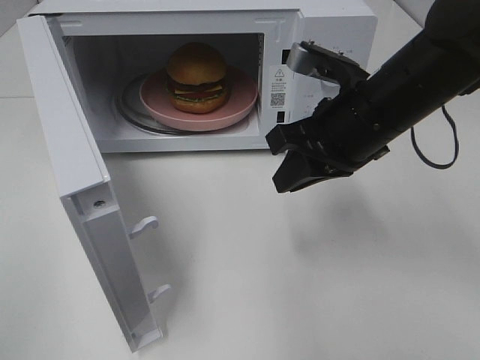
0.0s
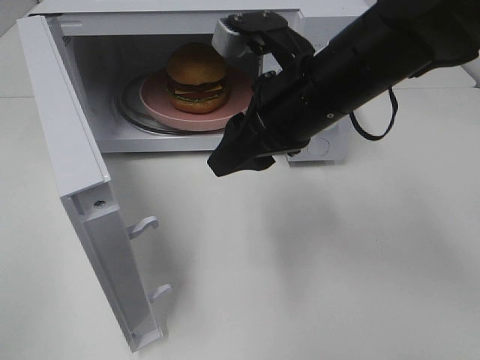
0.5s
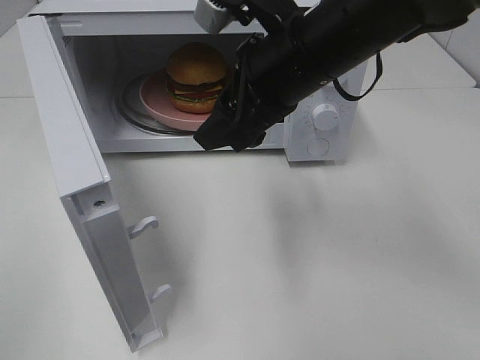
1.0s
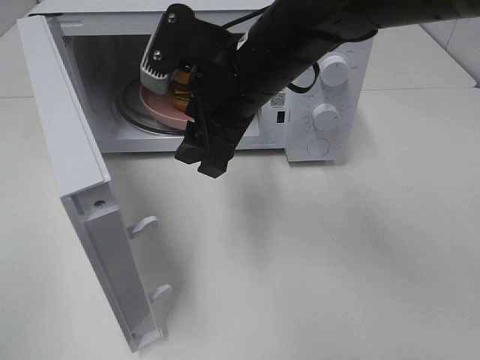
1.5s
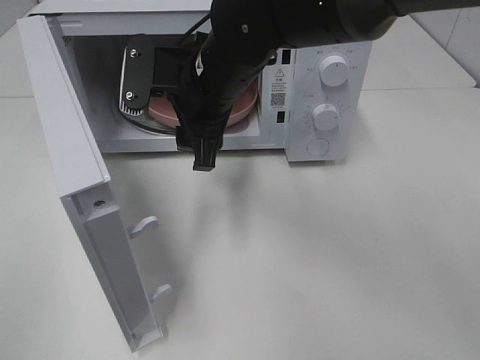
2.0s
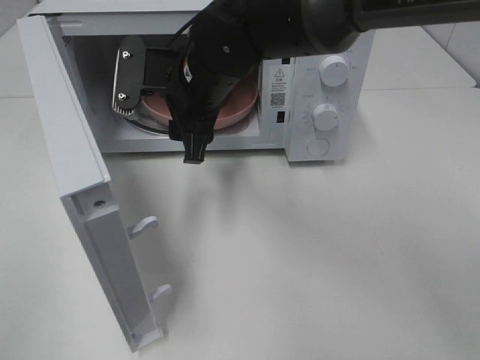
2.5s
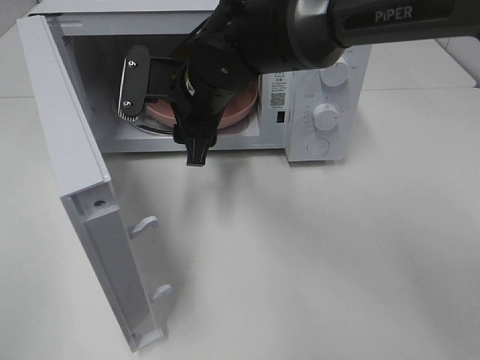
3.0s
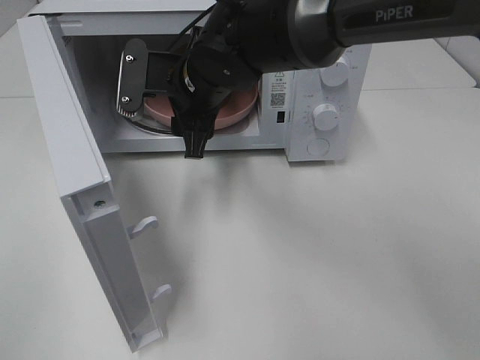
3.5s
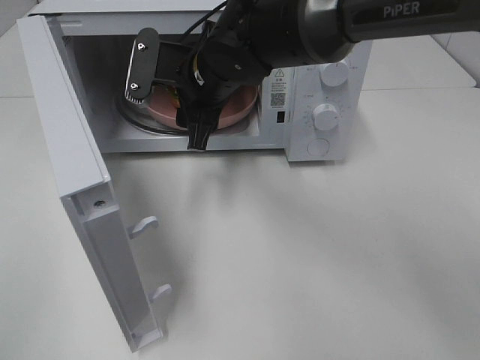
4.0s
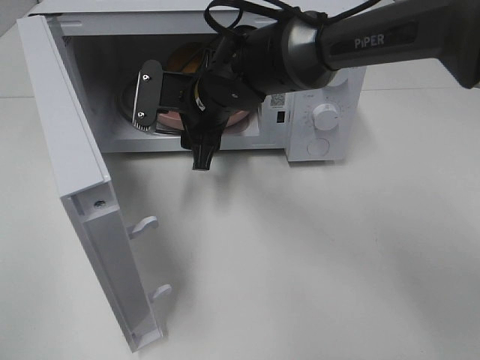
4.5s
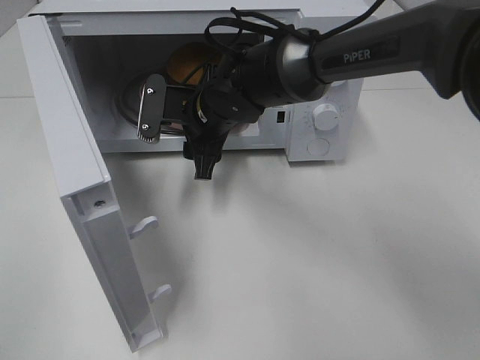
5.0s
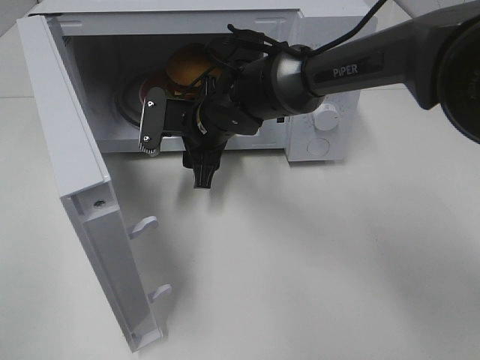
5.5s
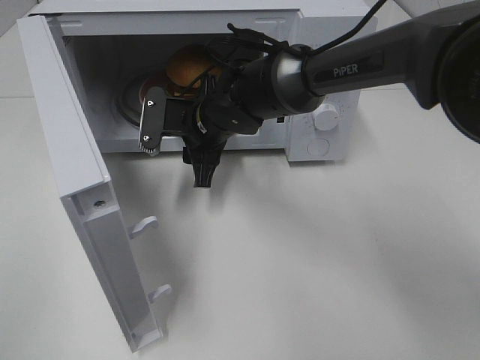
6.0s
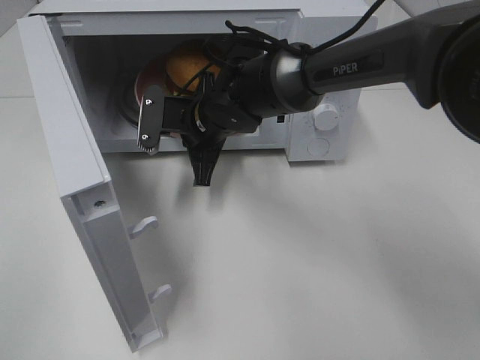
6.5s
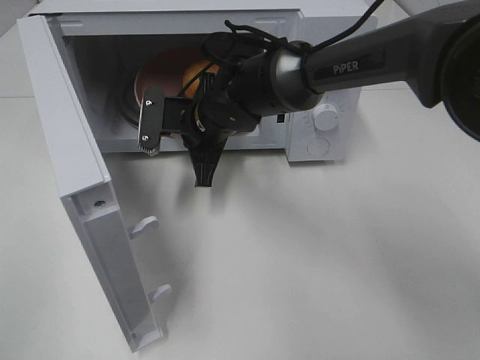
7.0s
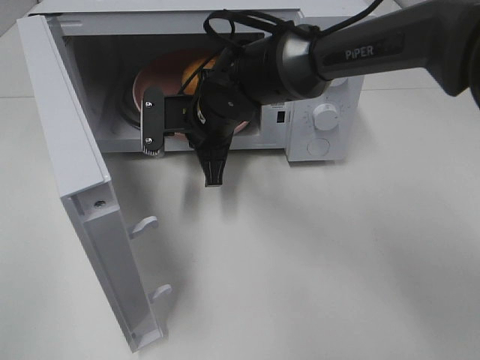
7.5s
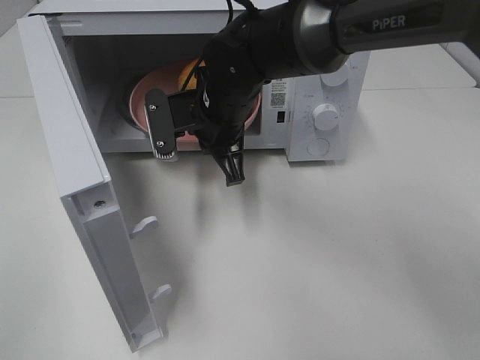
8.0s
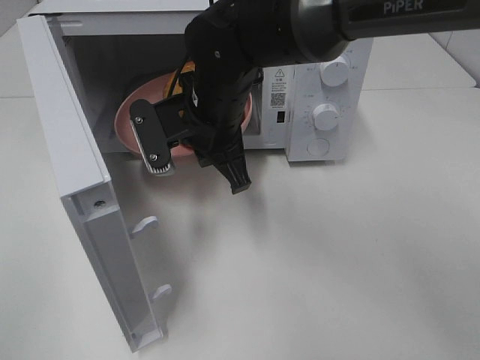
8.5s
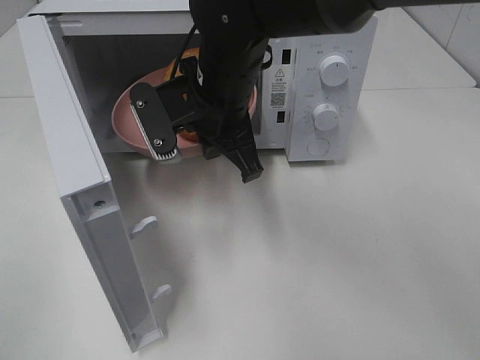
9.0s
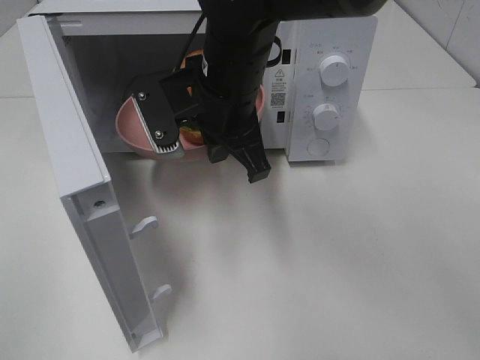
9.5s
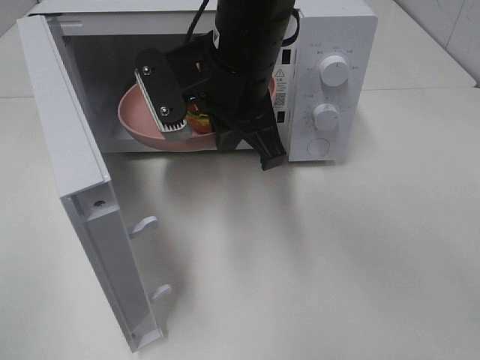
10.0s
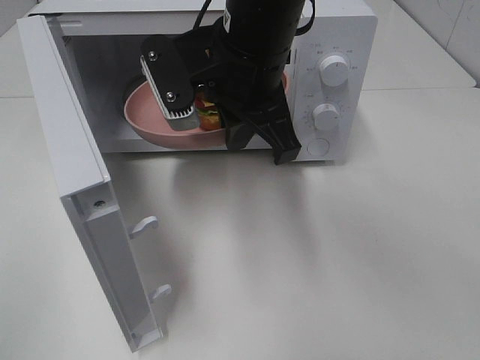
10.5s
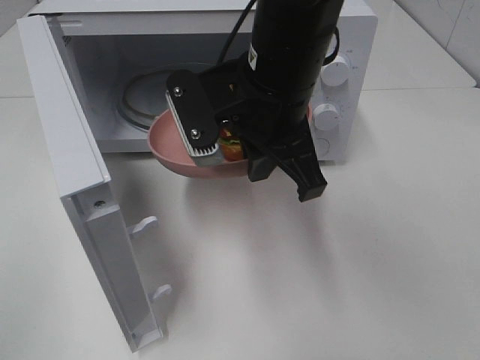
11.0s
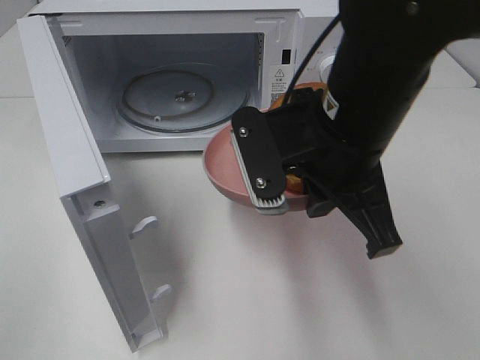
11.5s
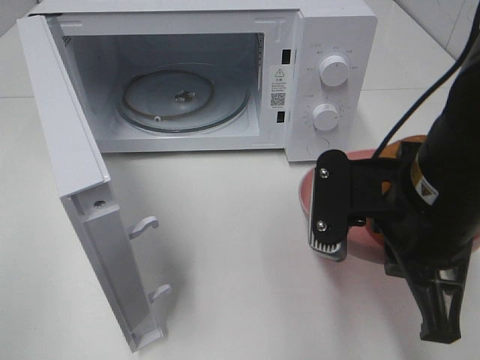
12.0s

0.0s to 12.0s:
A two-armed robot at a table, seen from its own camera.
Task of the whole recording: Heat the burger.
Step, 0.0s to 6.0s: Right hand: grab the plate with the hamburger.
0.0s to 2.0s: The right gripper travels to the left by about 15 cm, and opens up.
2.0s to 4.0s: The grippers stay close to where they were, moving slightly.
4.0s to 6.0s: The right gripper shifts about 10 cm downward.
6.0s to 8.0s: The right gripper ends up about 5 cm from where it was, and closes up.
8.0s to 10.0s: The right gripper travels upward and backward by roughly 10 cm.
10.0s to 12.0s: The right gripper moves to the right and backward, approximately 20 cm.

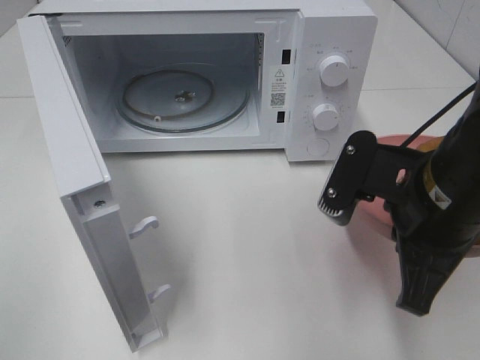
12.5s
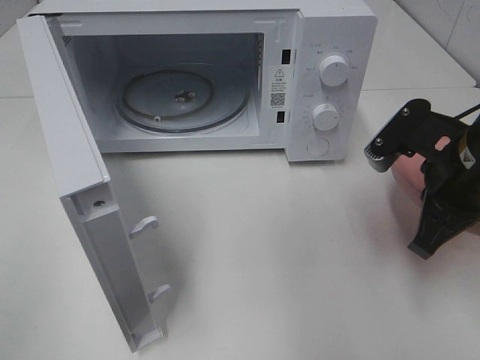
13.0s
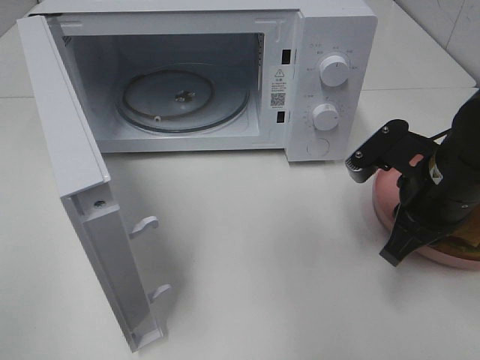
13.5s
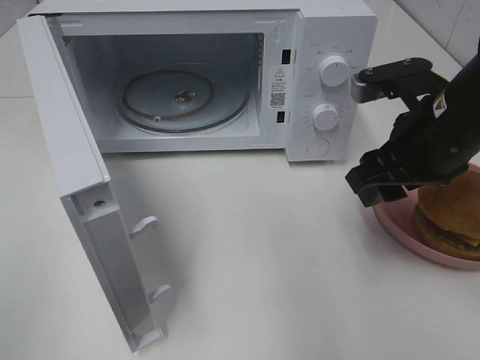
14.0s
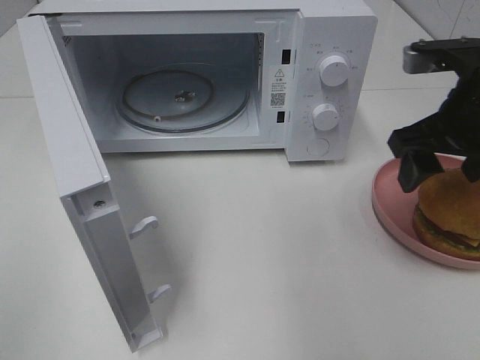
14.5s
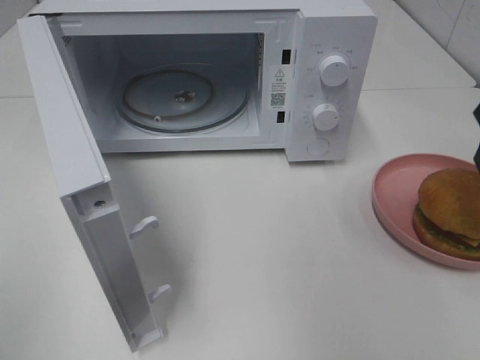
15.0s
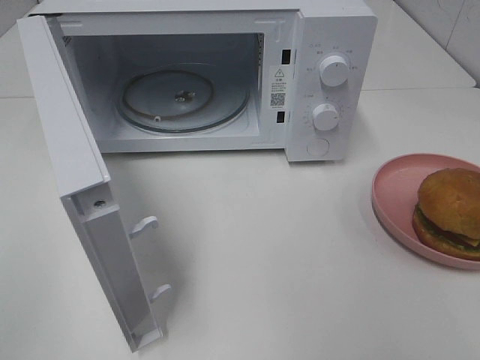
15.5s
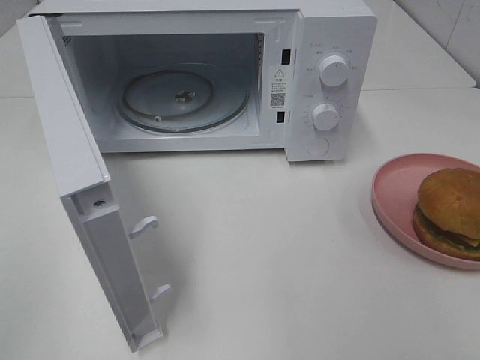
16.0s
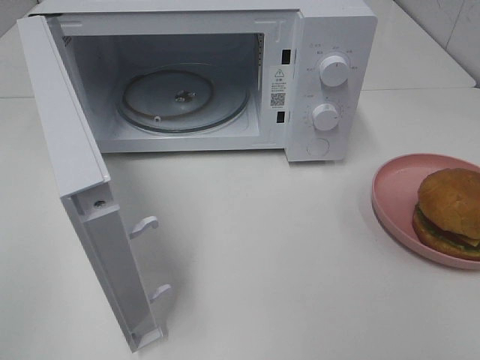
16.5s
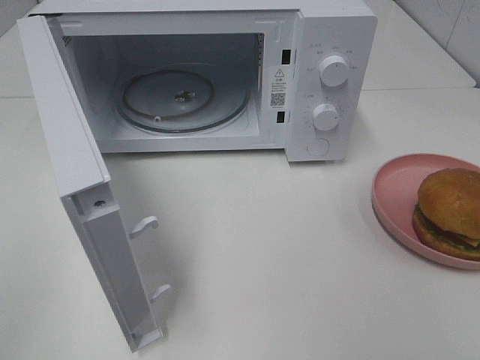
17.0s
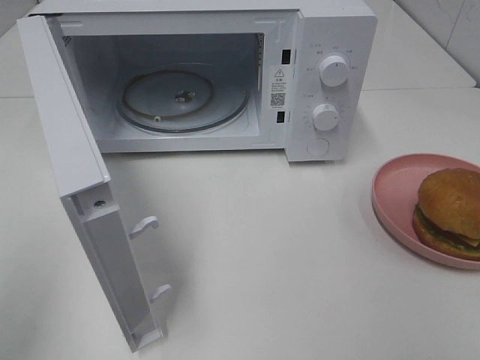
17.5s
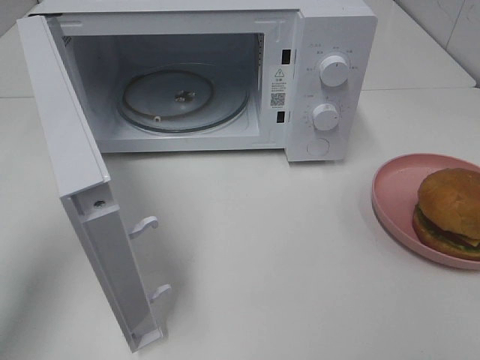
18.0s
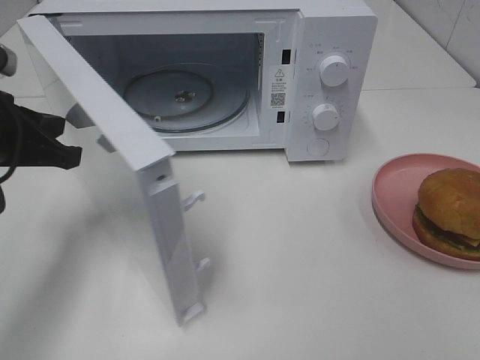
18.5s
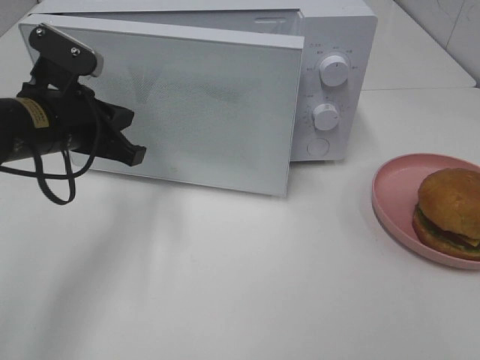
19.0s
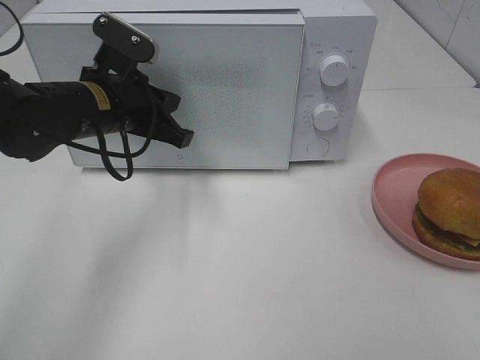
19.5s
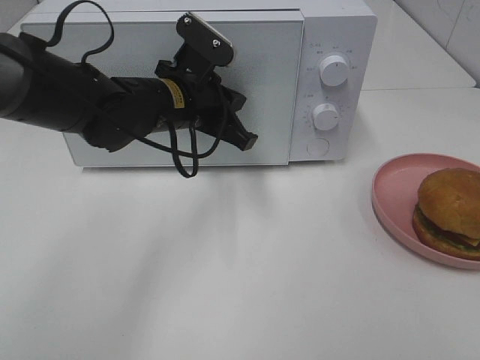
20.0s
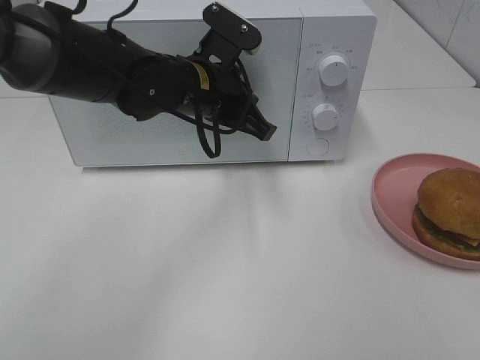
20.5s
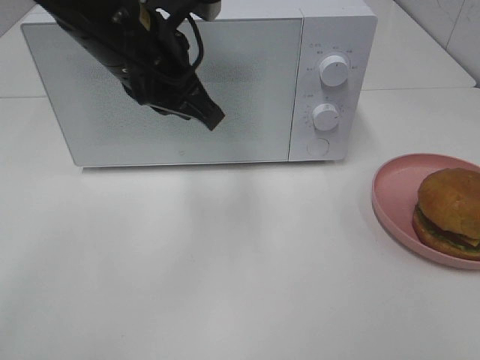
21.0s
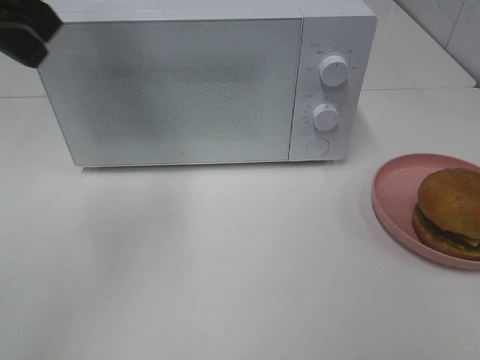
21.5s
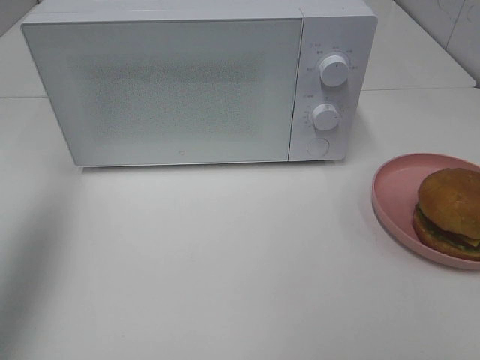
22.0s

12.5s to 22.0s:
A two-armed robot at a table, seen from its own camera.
Task of the whole recording: Heat the burger.
Step, 13.5s to 20.0s: Left hand: close the microwave door.
12.5s to 14.5s: The right gripper moves forward and to the right, approximately 10 cm, and opens its fingers.
14.5s to 16.5s: The right gripper travels backward by approximately 25 cm.
16.5s to 18.0s: The left gripper shifts some 20 cm forward.
18.0s to 20.0s: The left gripper heads to the right, forward and downward, covering about 30 cm, and opens up.
20.0s to 22.0s: The left gripper goes roughly 35 cm to the left, upward and backward, and closes its fingers.

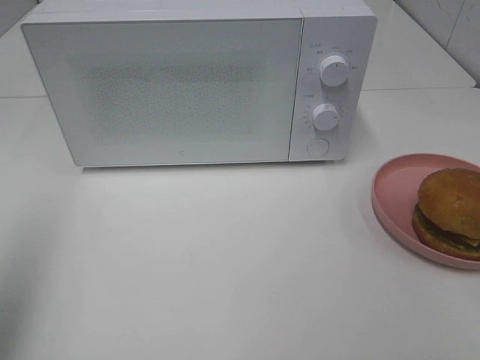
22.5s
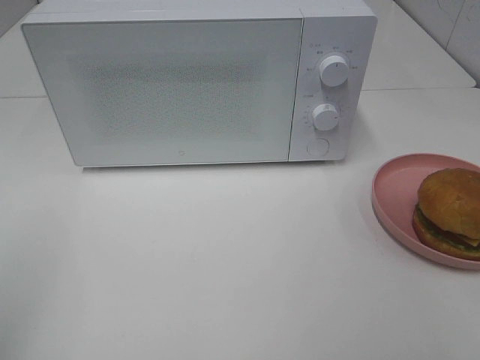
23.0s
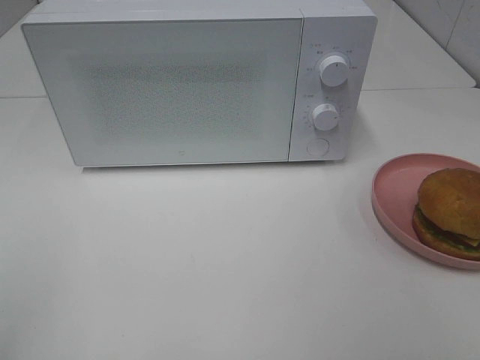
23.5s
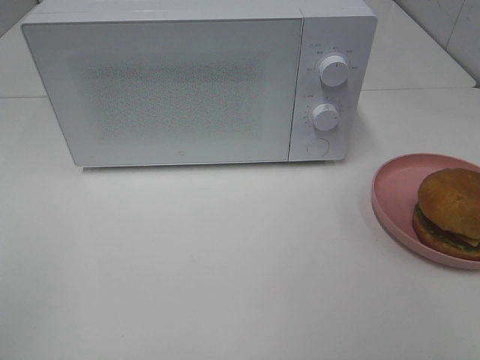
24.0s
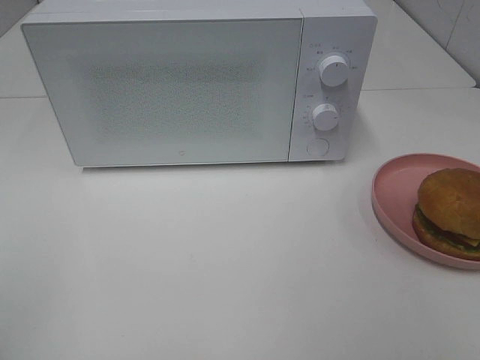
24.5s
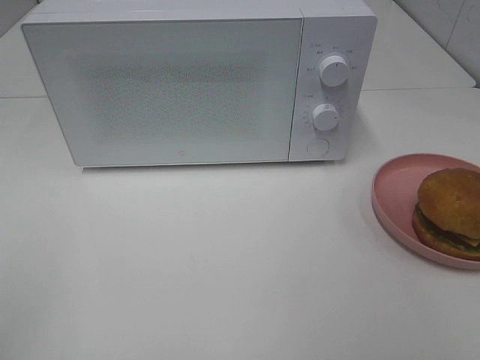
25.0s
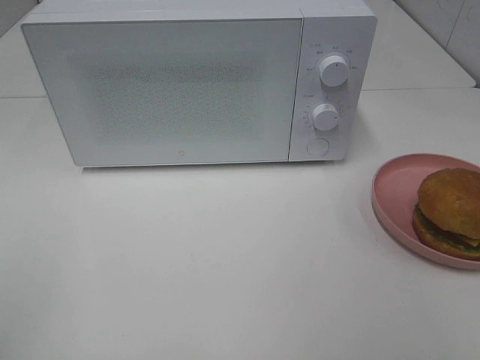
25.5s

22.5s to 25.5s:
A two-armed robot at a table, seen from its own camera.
Task of the whole recording: Heat the burger.
22.5s to 24.0s: The left gripper moves backward, approximately 15 cm.
24.0s to 25.5s: Both grippers stay put.

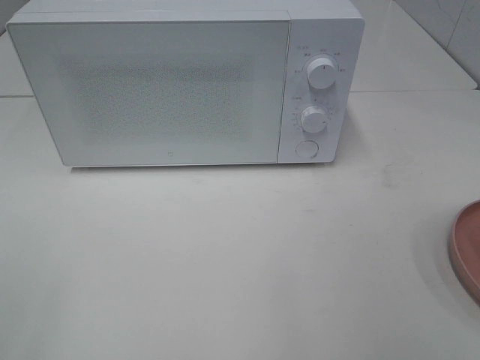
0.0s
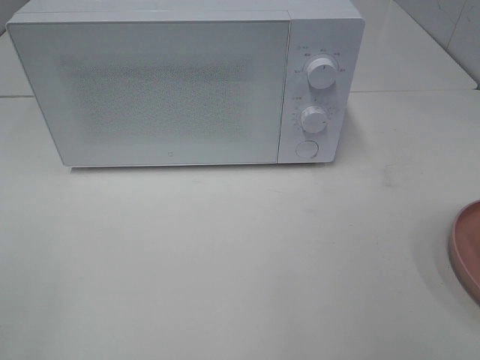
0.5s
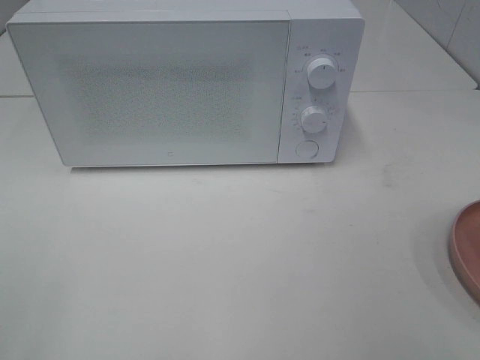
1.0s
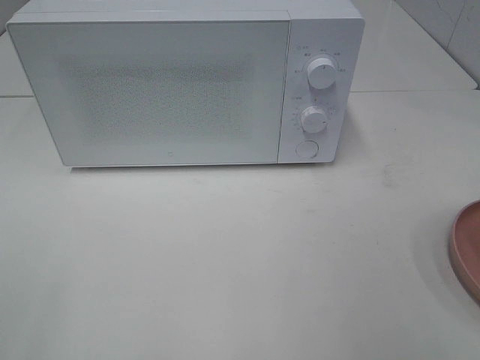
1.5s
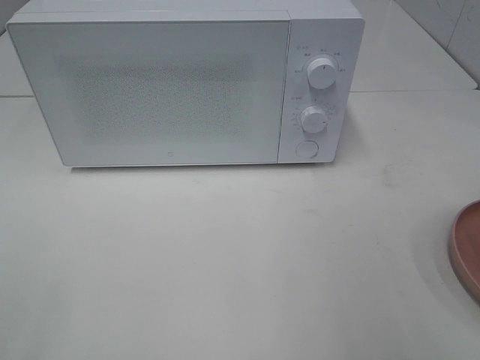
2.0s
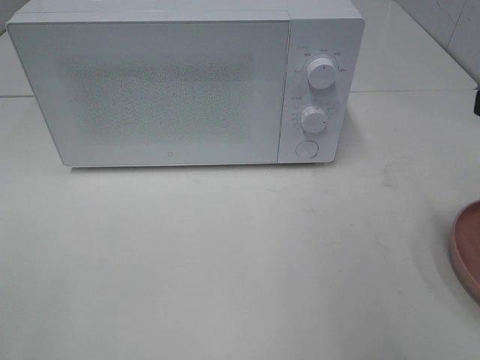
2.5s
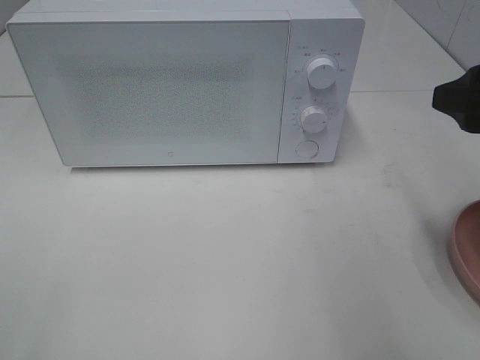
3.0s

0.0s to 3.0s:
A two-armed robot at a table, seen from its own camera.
Task of the whole recording: Heat the burger.
1.5s to 3.0s: The right gripper shifts roughly 15 cm forward.
